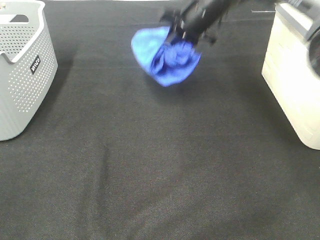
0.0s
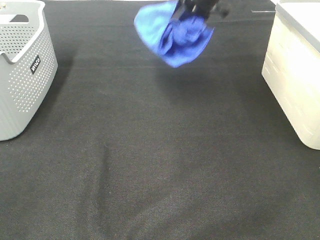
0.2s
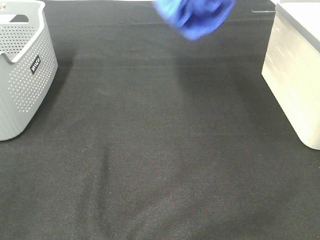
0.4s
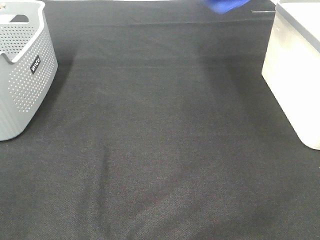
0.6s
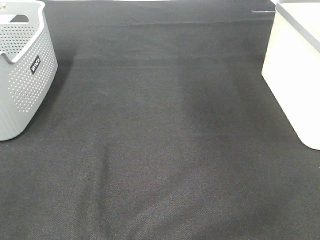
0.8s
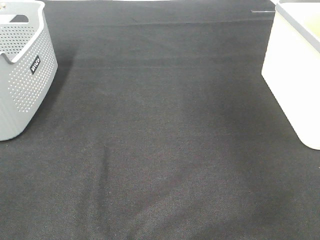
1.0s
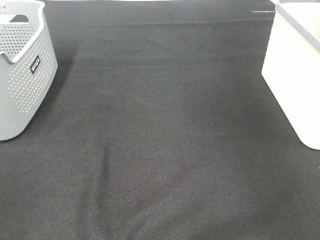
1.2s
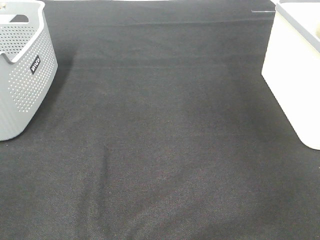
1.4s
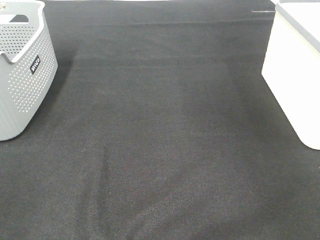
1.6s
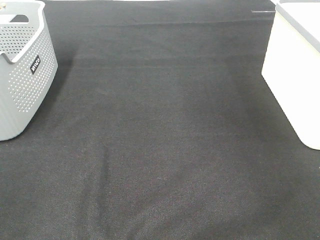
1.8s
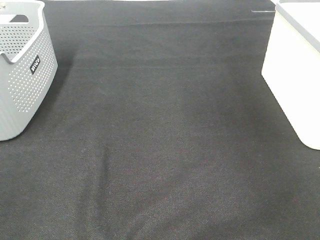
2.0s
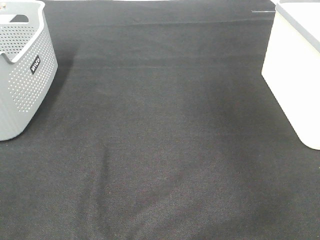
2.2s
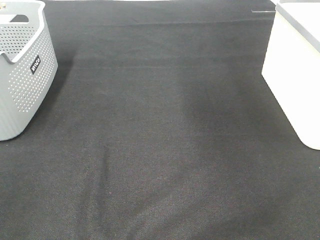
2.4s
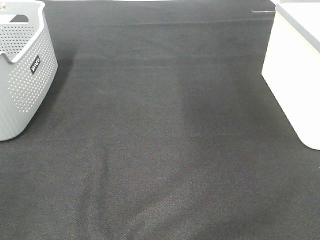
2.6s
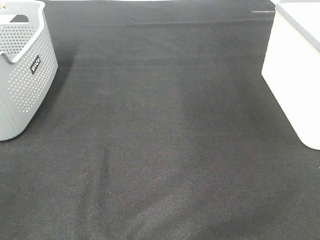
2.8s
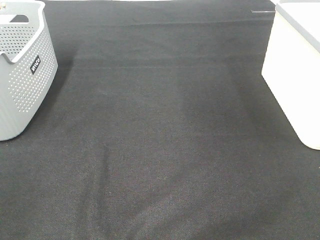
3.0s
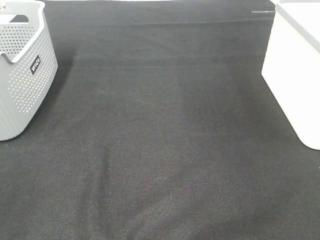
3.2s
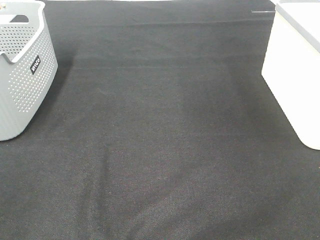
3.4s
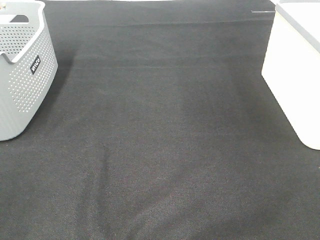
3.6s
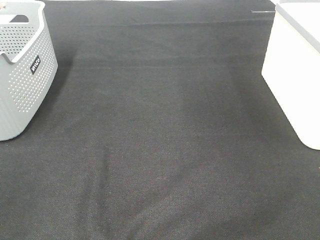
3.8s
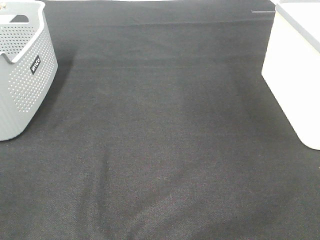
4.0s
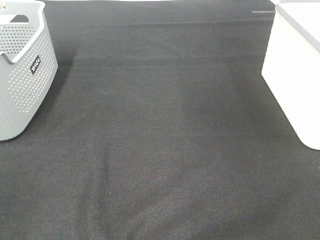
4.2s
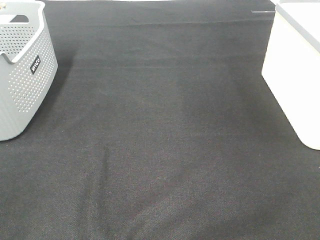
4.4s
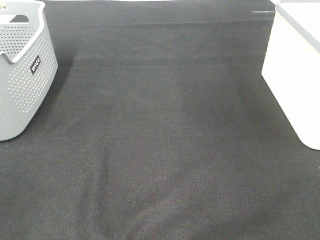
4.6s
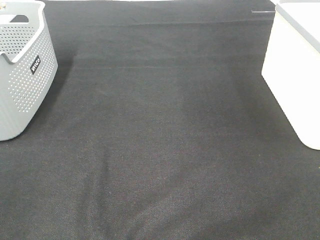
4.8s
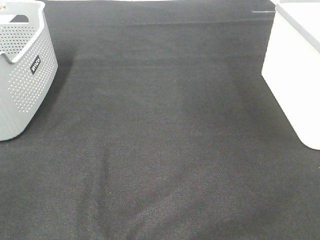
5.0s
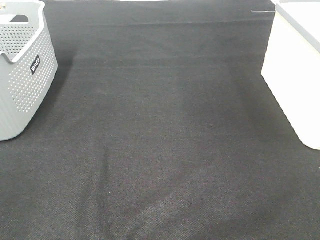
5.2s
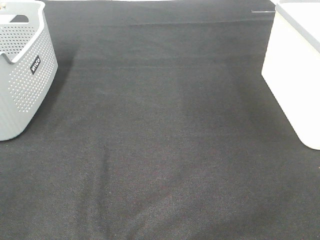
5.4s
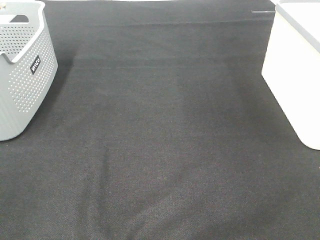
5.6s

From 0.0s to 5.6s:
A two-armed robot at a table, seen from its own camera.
Step, from 0.0s to 1.6s: Right hand: place the blue towel in right basket.
From 0.0s to 1.4s: The right gripper is displaced to the right by roughly 35 cm.

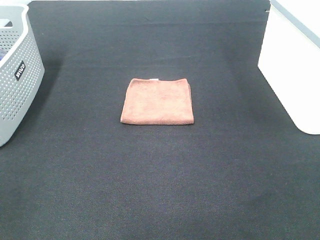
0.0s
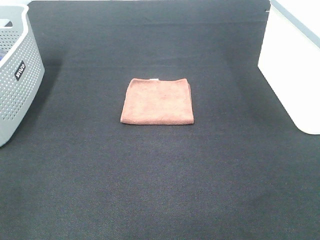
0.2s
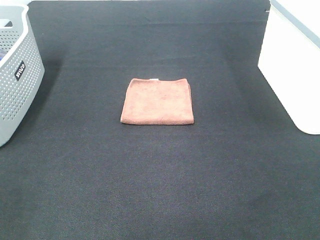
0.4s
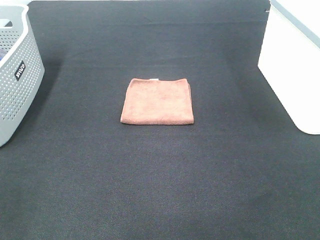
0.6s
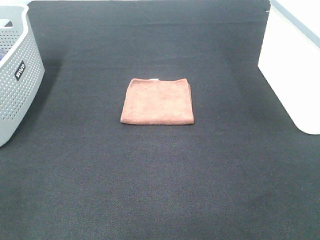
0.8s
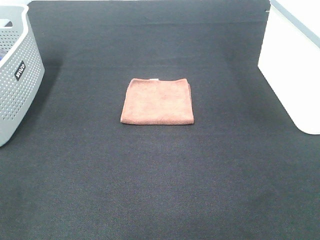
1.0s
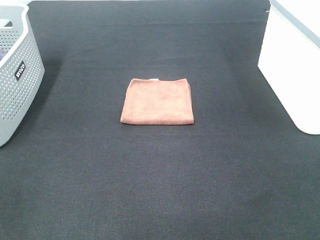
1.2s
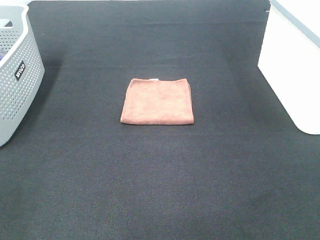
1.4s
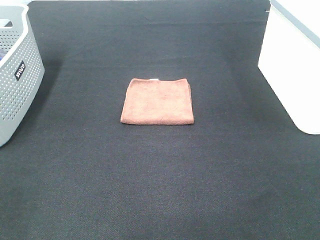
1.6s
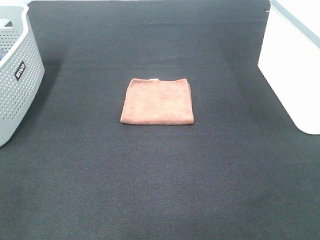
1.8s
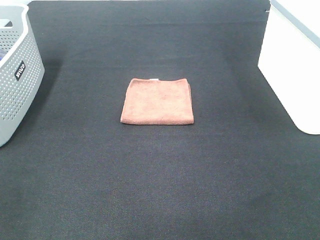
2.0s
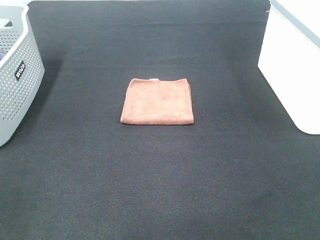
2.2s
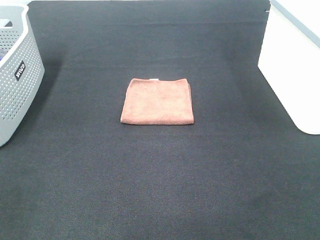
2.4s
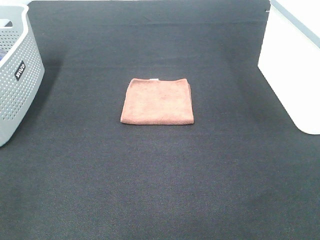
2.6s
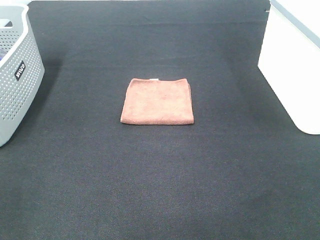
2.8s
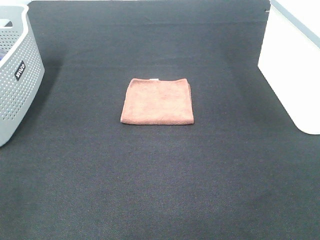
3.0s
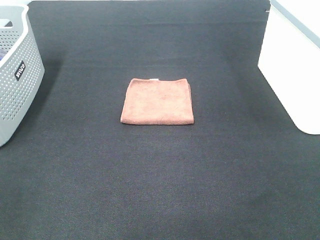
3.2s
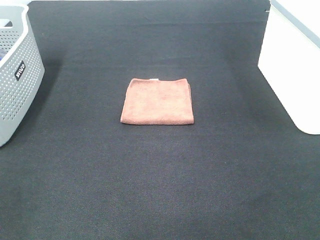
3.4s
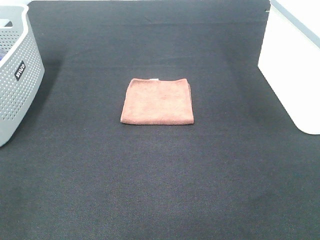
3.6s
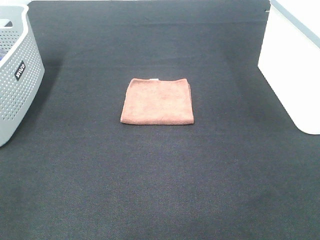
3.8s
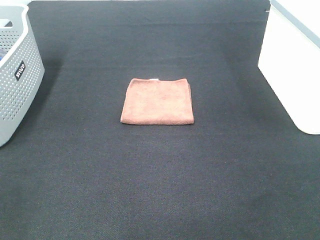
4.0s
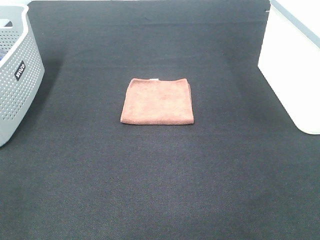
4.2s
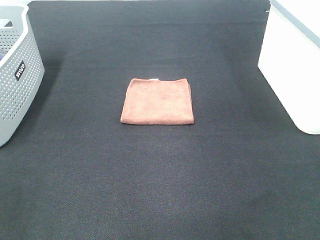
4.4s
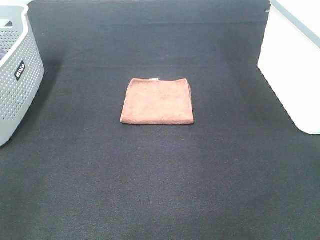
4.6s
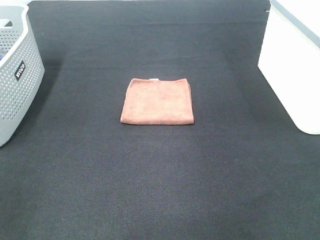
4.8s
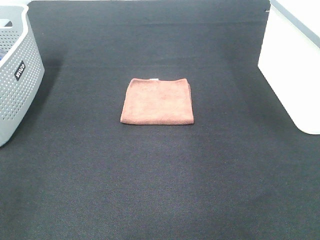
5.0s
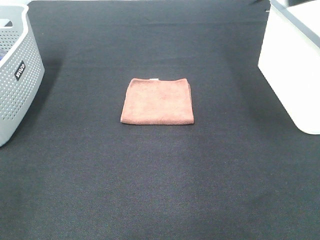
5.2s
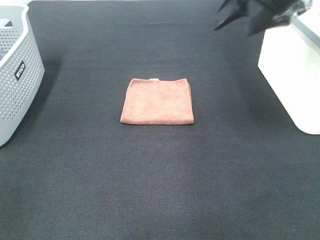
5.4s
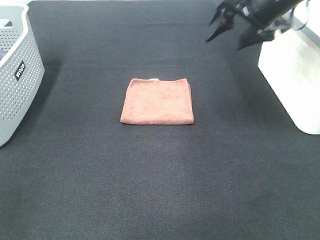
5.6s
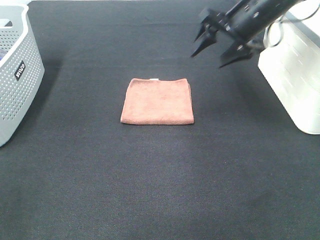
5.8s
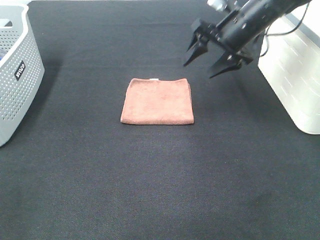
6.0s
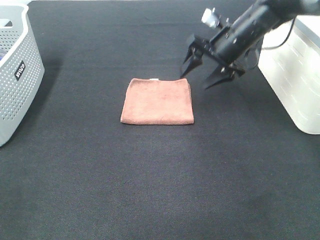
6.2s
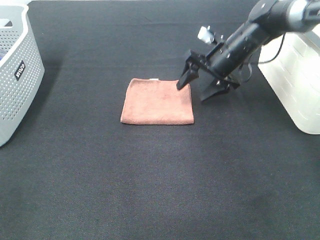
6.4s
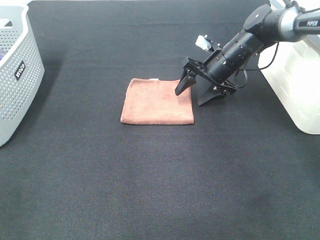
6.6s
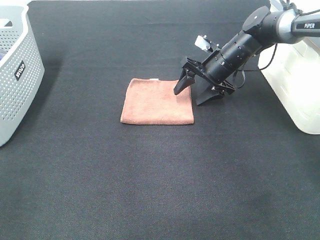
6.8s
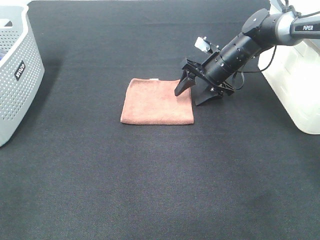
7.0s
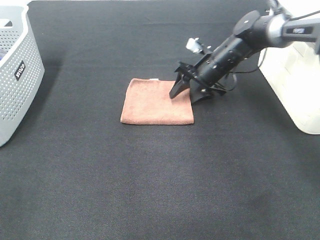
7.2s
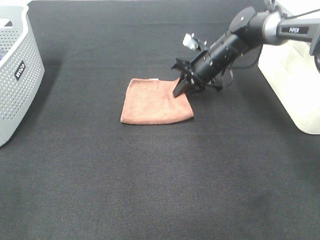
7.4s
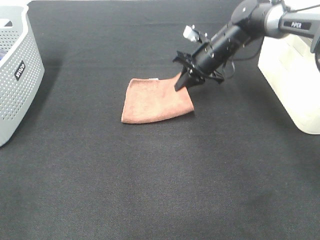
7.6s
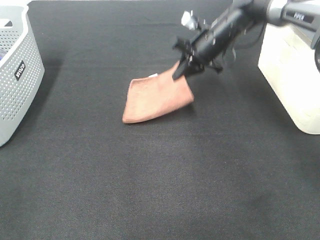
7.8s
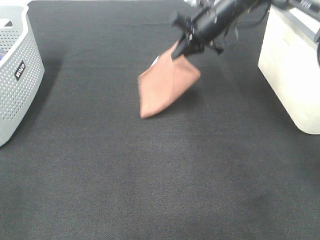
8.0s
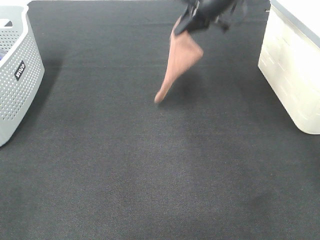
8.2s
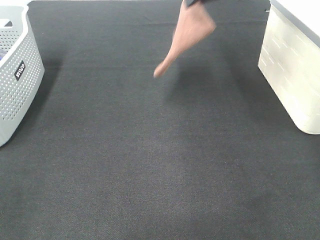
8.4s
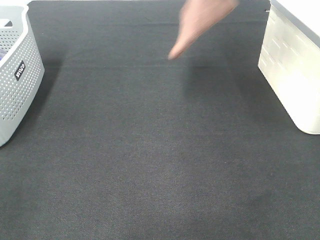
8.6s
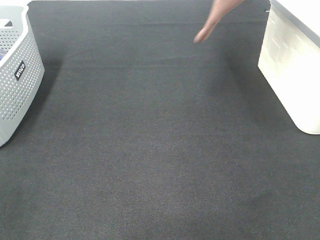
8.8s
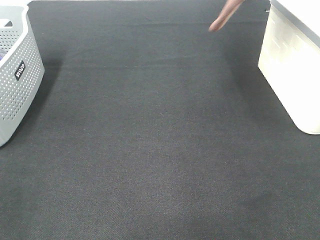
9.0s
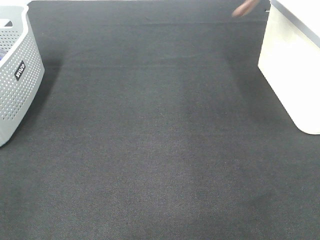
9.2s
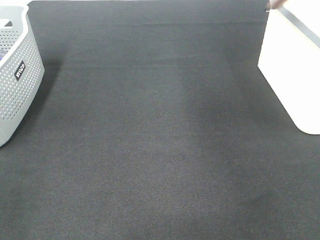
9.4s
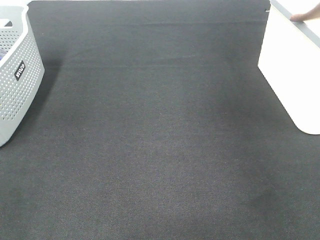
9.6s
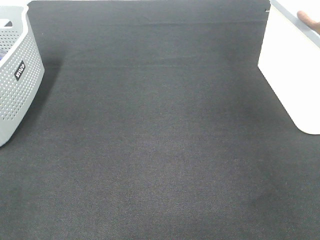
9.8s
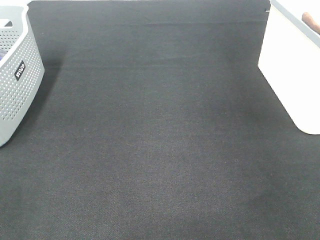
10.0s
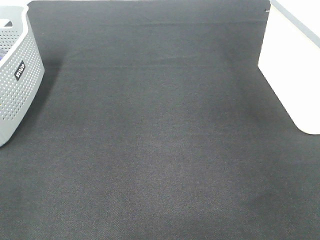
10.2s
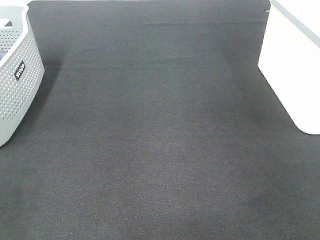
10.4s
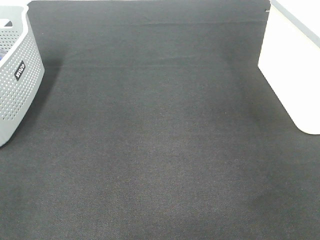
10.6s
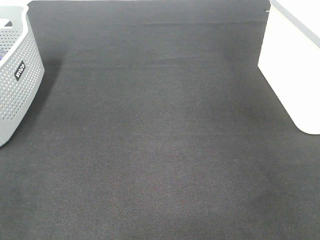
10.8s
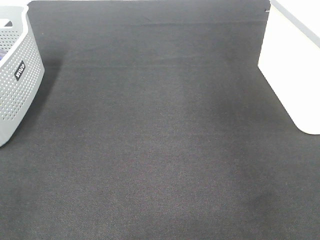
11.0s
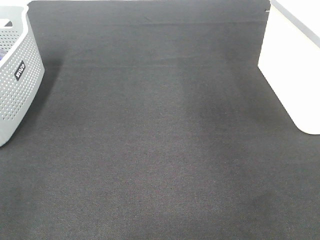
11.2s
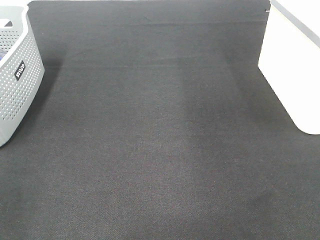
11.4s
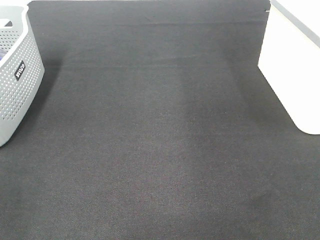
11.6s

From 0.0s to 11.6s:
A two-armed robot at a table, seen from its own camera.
Step, from 0.0s to 7.4s: Right hand: grab the folded brown towel.
Step, from 7.6s to 10.8s: Right hand: place the brown towel in right basket.
From 0.0s to 2.8s: The two grippers keep their place.
From 4.4s to 5.8s: The right gripper heads forward, covering some 30 cm.
From 5.8s to 7.2s: The right gripper goes approximately 15 cm downward and forward.
From 7.2s to 8.8s: The right gripper shifts approximately 30 cm upward, and closes.
From 8.8s to 10.2s: The right gripper goes approximately 25 cm to the right and downward.

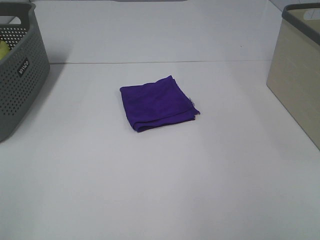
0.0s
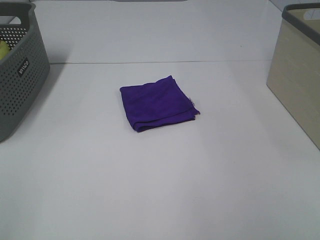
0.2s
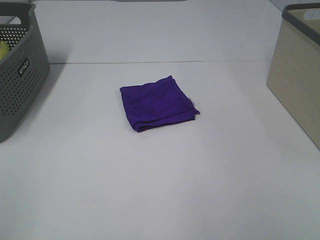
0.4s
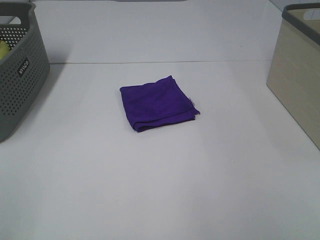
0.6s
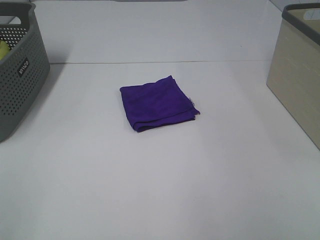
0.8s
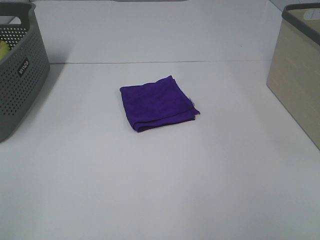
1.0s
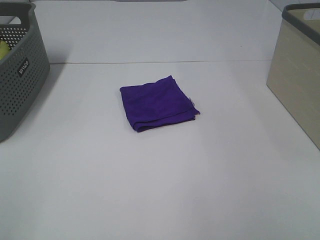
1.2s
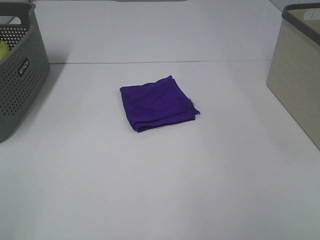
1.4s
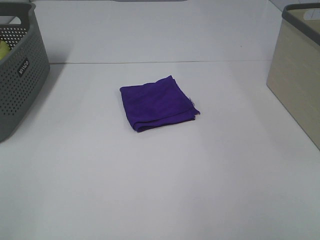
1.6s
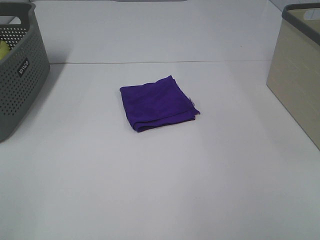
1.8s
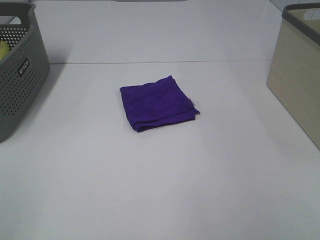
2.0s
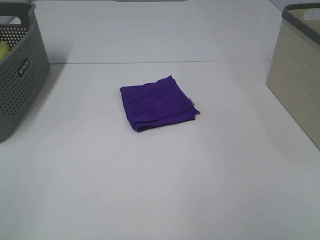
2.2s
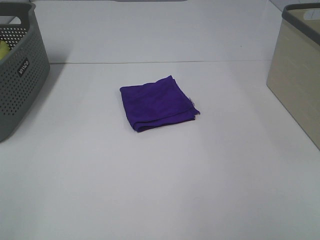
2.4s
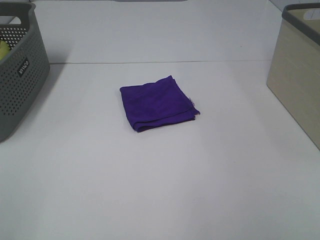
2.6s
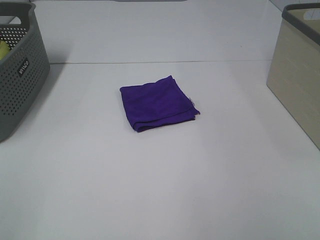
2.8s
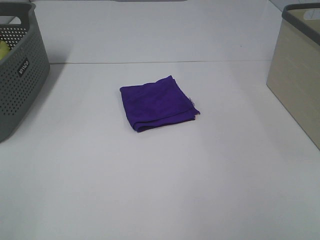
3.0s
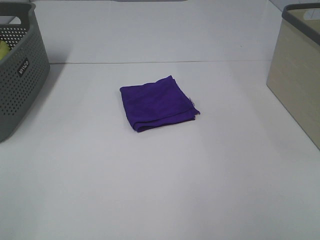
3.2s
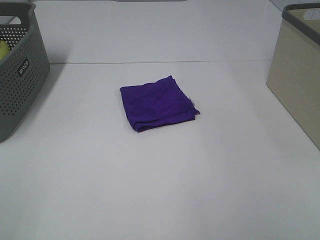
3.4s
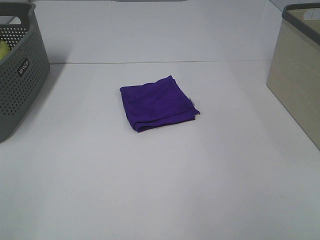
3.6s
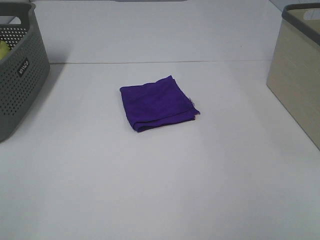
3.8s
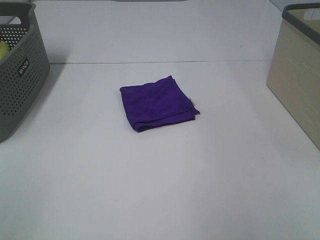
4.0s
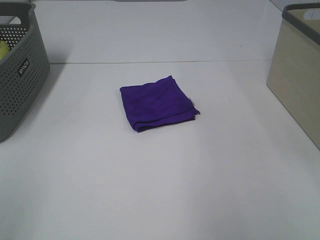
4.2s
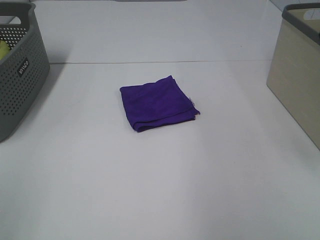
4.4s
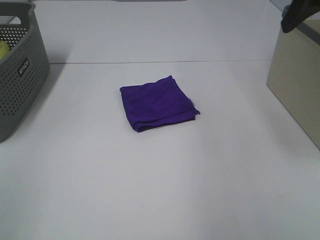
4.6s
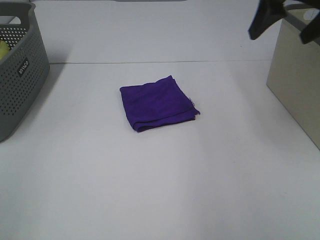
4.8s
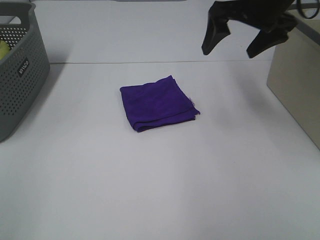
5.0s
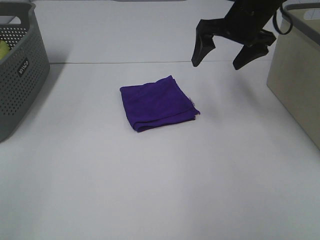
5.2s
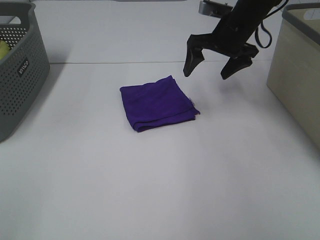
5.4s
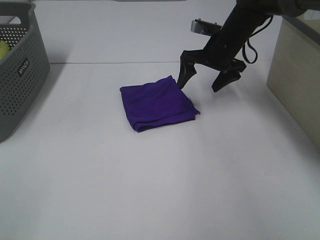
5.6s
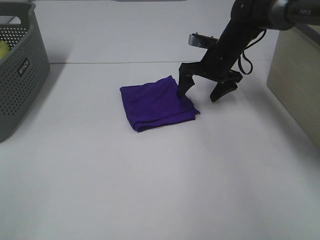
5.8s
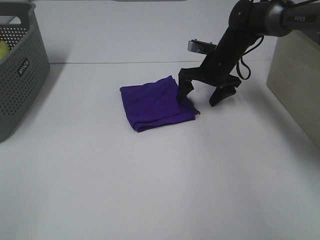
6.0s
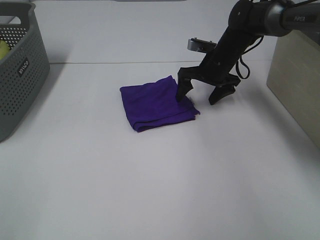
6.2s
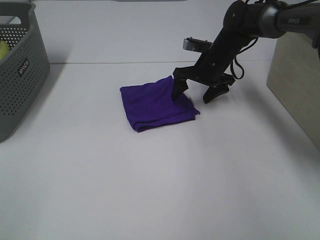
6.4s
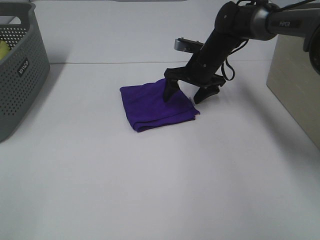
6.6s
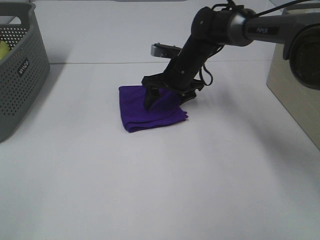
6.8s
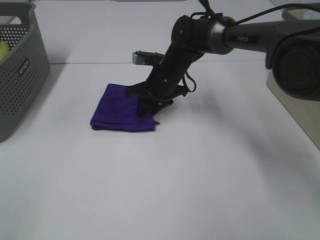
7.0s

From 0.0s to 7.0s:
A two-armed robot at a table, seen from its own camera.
From 0.0s to 2.8s: The two grippers keep their place.
From 4.2s to 5.6s: The right gripper goes roughly 40 cm forward, downward and to the left.
From 5.6s to 7.0s: The right gripper moves to the left and downward, approximately 15 cm, and closes its fingers.
